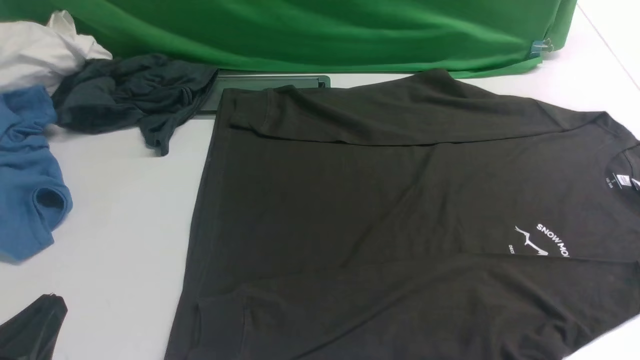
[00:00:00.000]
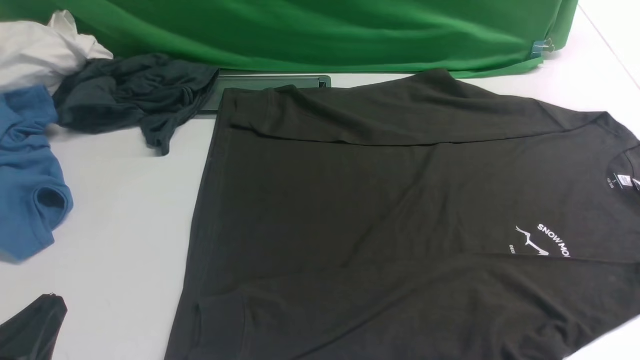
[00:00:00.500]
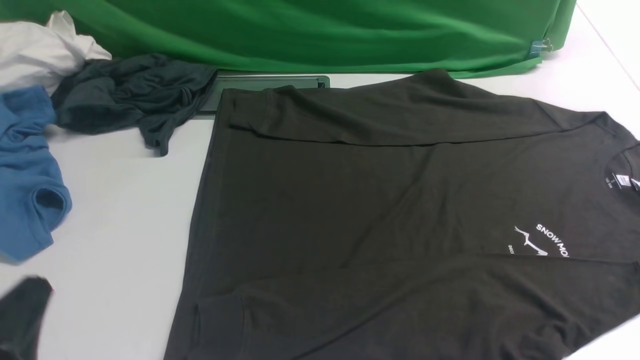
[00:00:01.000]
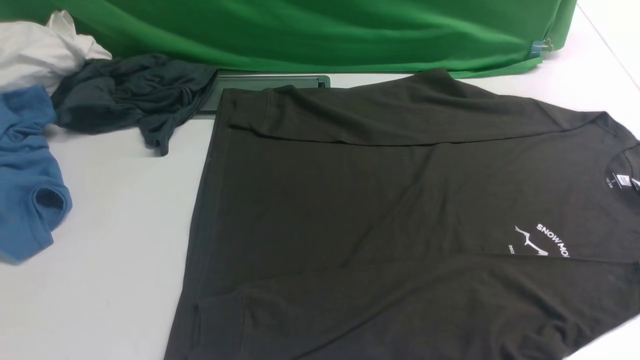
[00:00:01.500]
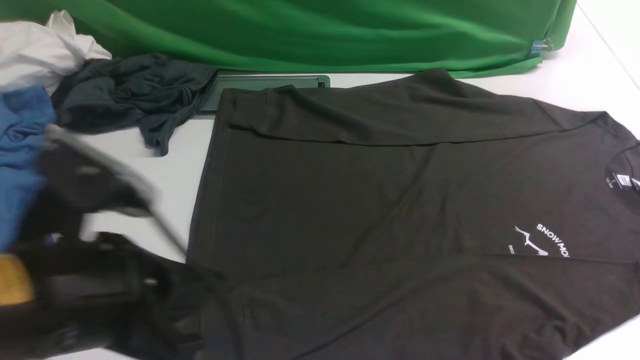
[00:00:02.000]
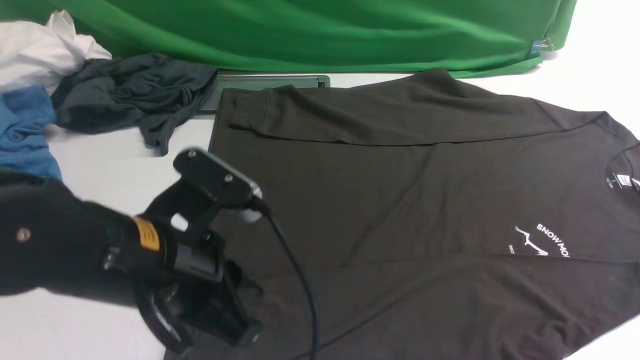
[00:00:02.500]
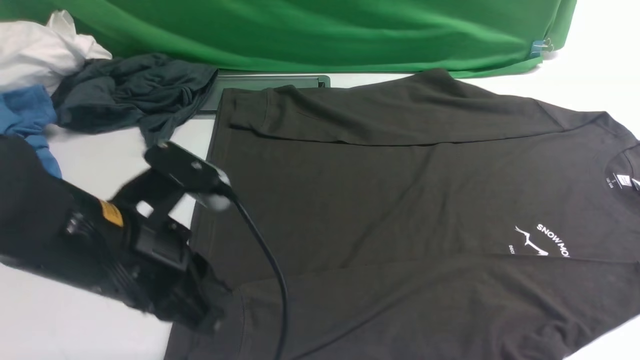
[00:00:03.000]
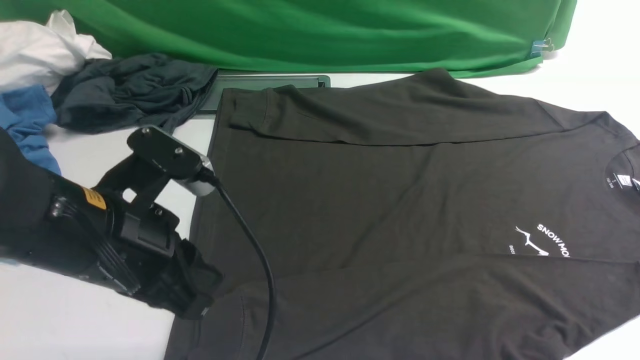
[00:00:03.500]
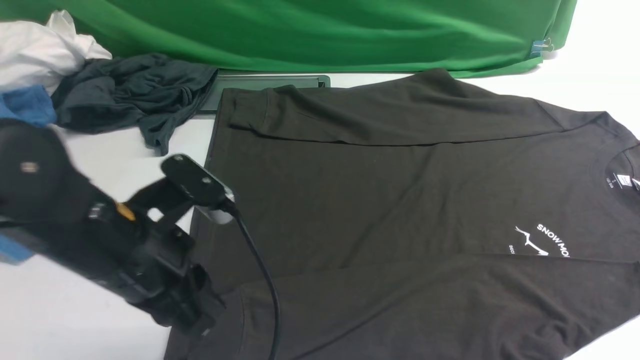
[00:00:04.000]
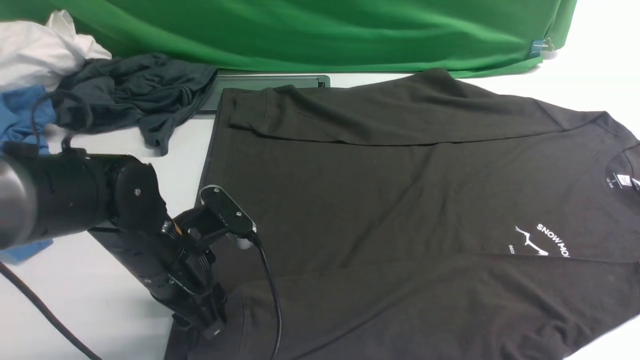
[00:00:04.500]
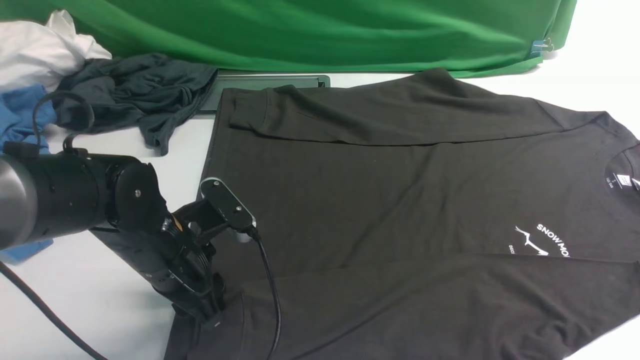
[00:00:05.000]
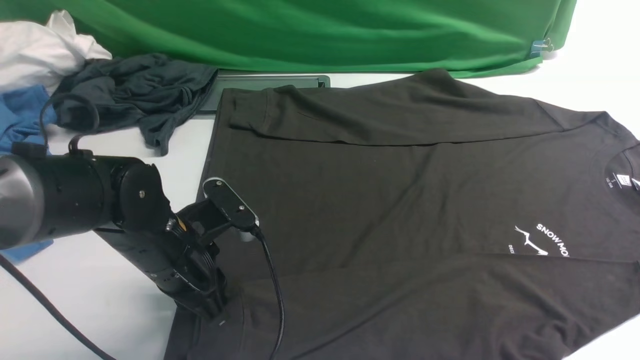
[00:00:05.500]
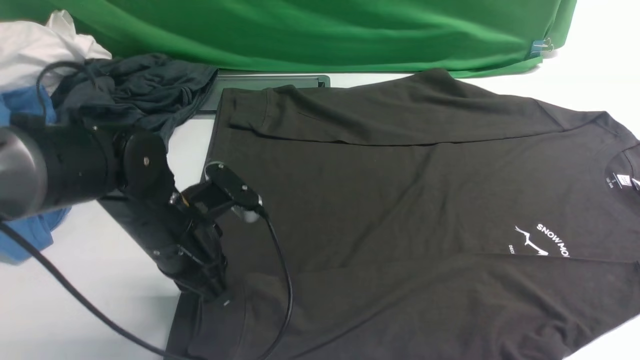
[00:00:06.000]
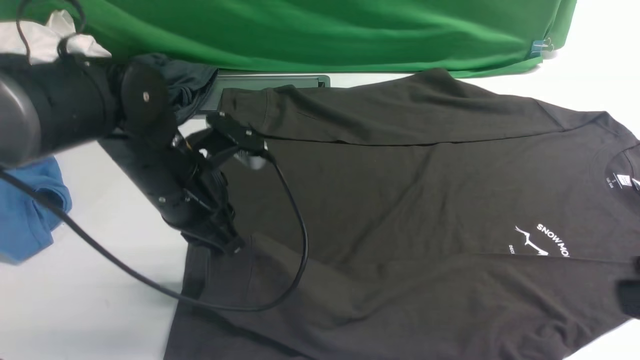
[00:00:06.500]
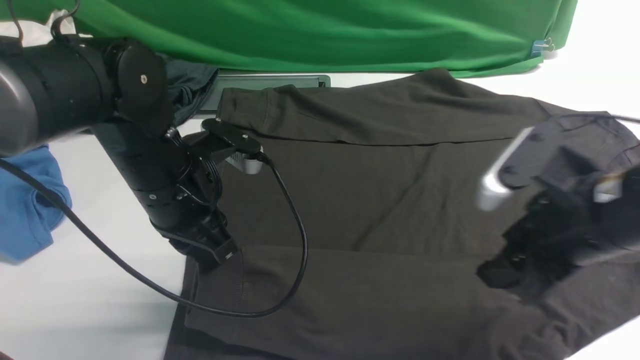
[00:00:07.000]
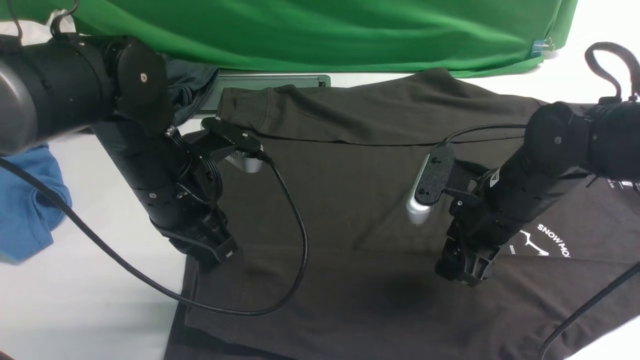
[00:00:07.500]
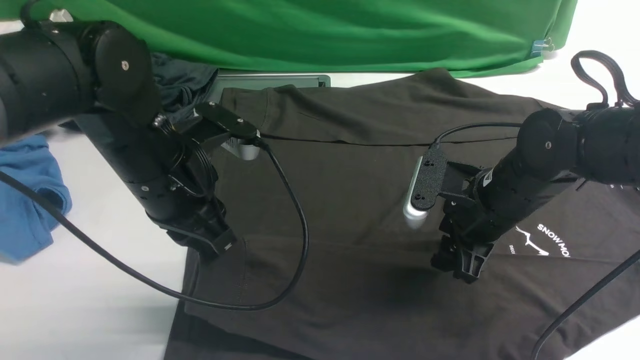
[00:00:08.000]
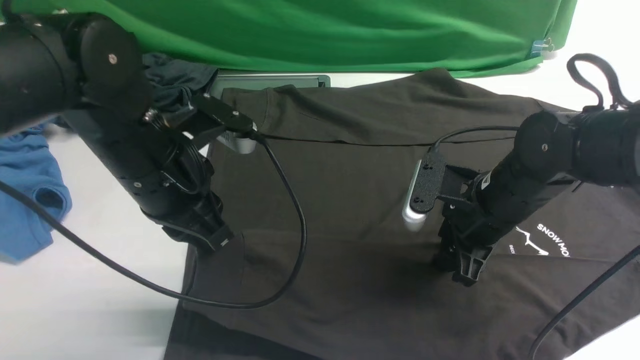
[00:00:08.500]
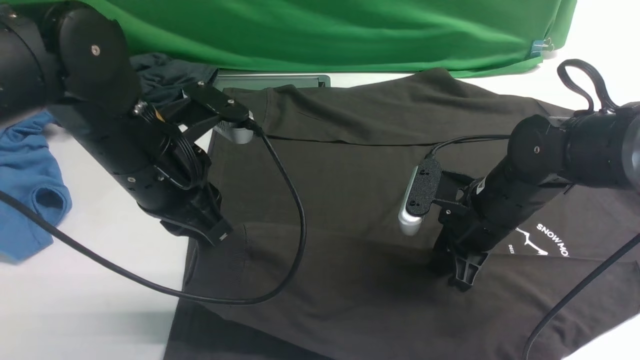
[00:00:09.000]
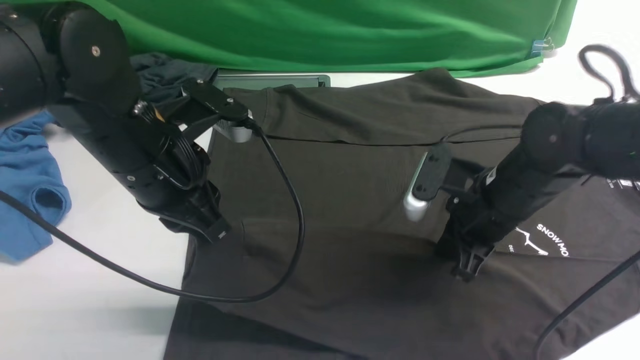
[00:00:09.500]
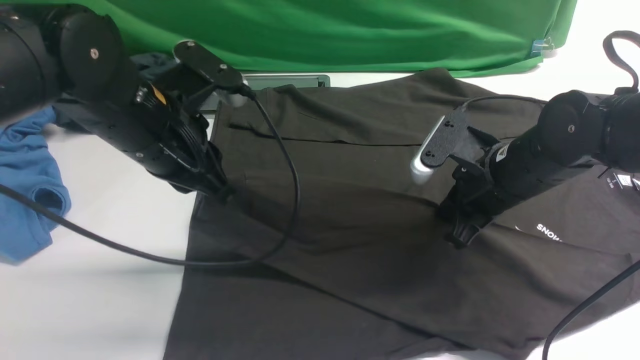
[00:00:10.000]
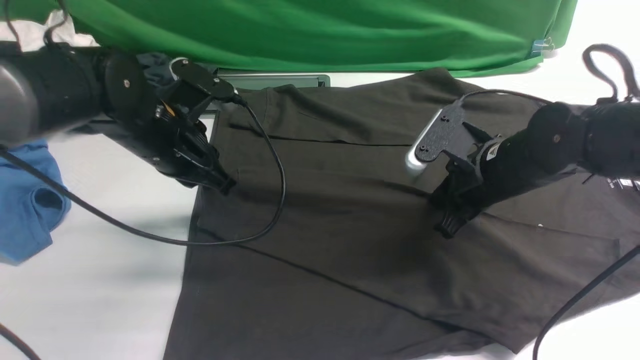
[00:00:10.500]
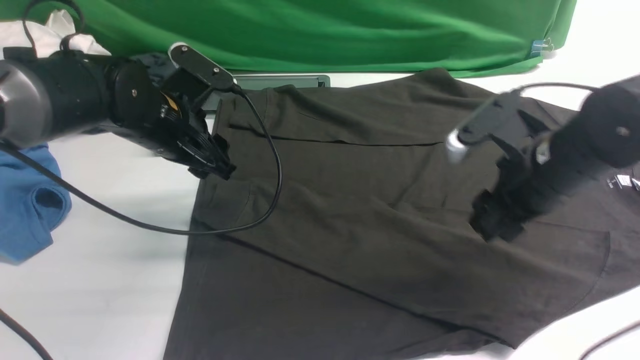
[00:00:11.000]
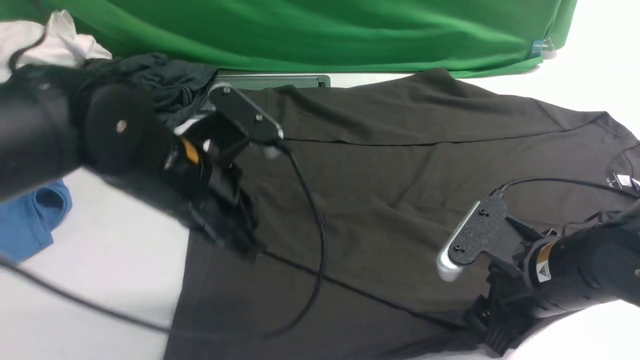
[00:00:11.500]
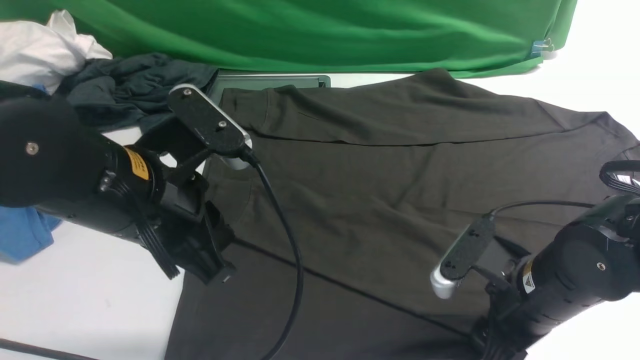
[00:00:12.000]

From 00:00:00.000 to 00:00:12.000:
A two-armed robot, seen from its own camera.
Step, from 00:00:00.000 to 00:00:06.500: use the left arm to clamp the cuff closest to it.
Step, from 00:00:07.000 to 00:00:10.500: use the left arm to drag and place the cuff at the centered position on the left edge of the fabric.
From 00:00:00.000 to 00:00:02.000: The left gripper is displaced upward, to the right and forward by about 15 cm.
From 00:00:02.000 to 00:00:04.000: The right gripper heads upward, covering roughly 15 cm. The left gripper shifts some 10 cm forward and downward, and opens up.
From 00:00:04.000 to 00:00:06.000: The left gripper shifts about 10 cm forward and downward, and closes up.
From 00:00:06.000 to 00:00:08.000: The left gripper shifts some 5 cm upward, while the right gripper goes approximately 30 cm forward and downward, and opens up.
From 00:00:08.000 to 00:00:10.000: The right gripper closes its fingers.
From 00:00:10.000 to 00:00:12.000: Both grippers move backward, roughly 10 cm. The left gripper opens, then closes again. Meanwhile the right gripper opens.

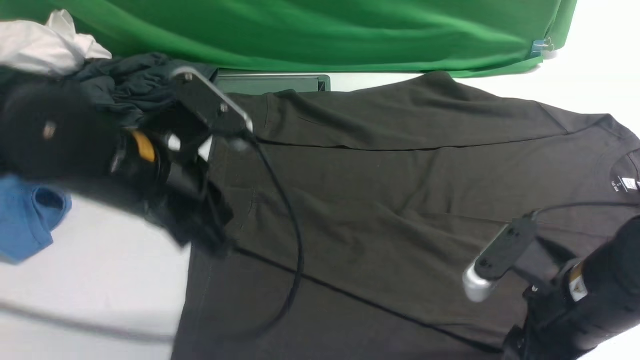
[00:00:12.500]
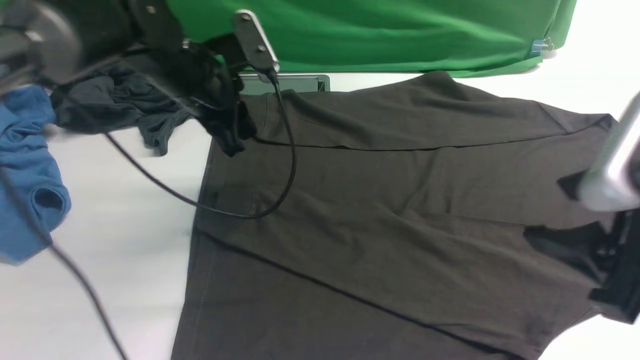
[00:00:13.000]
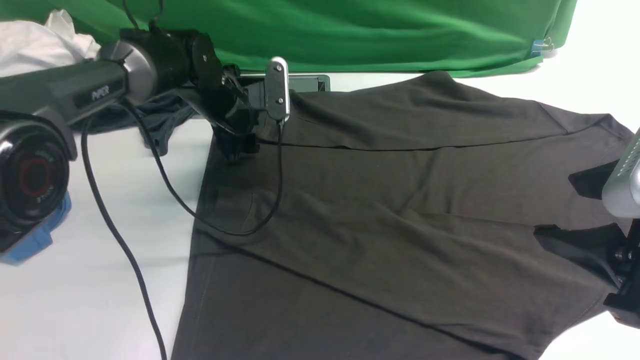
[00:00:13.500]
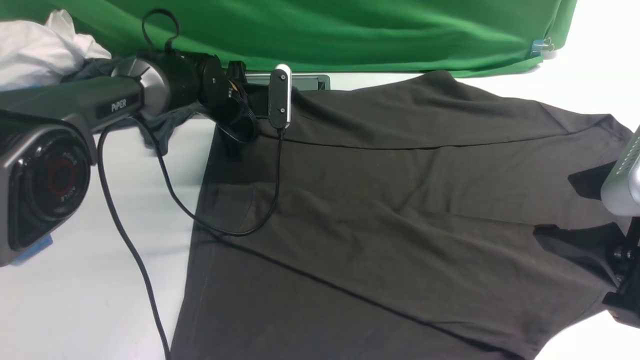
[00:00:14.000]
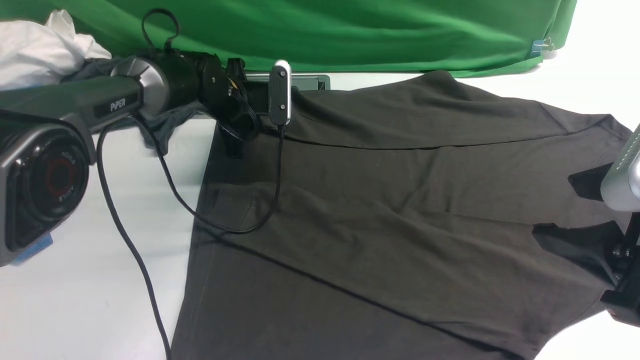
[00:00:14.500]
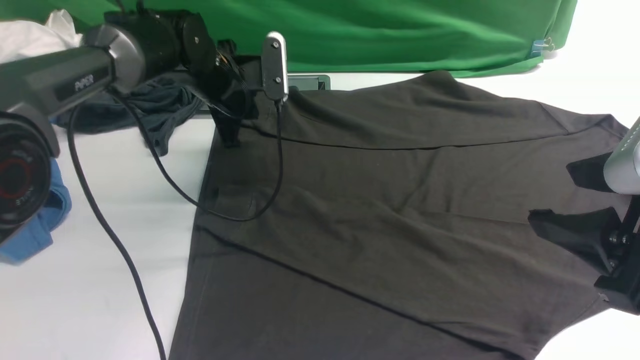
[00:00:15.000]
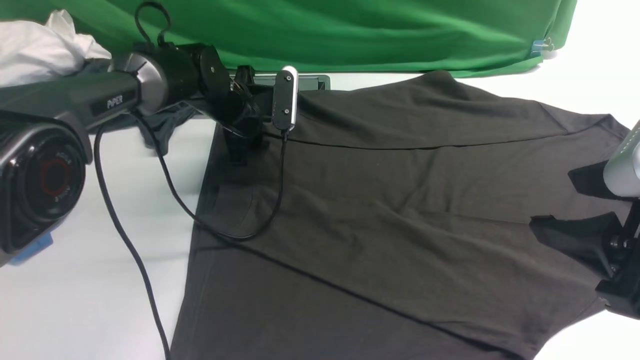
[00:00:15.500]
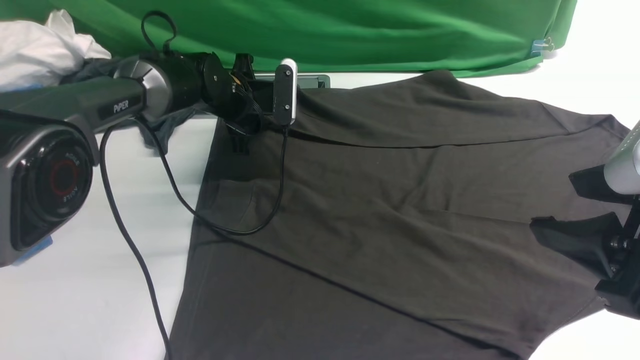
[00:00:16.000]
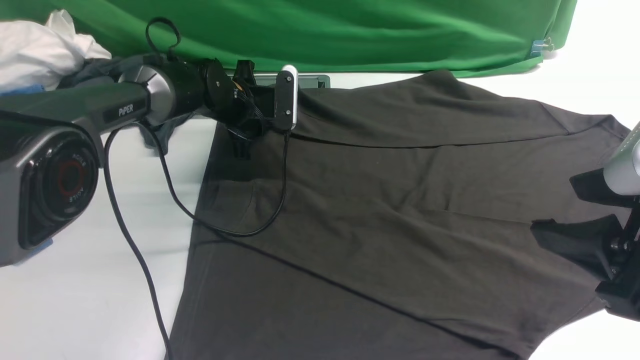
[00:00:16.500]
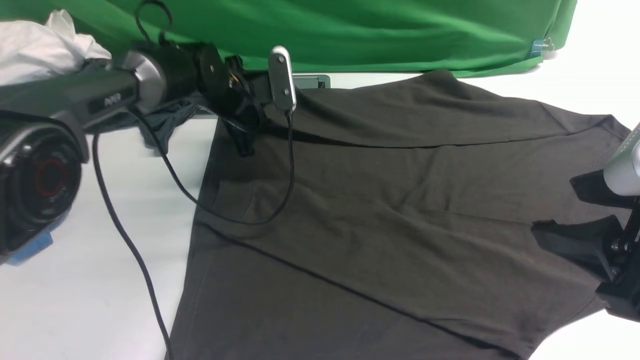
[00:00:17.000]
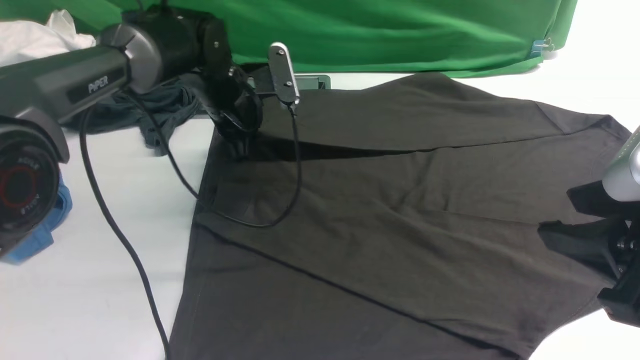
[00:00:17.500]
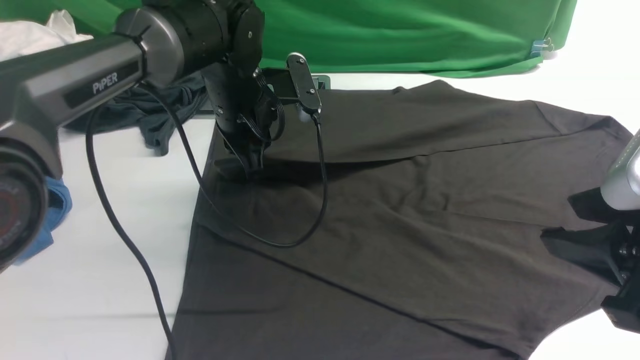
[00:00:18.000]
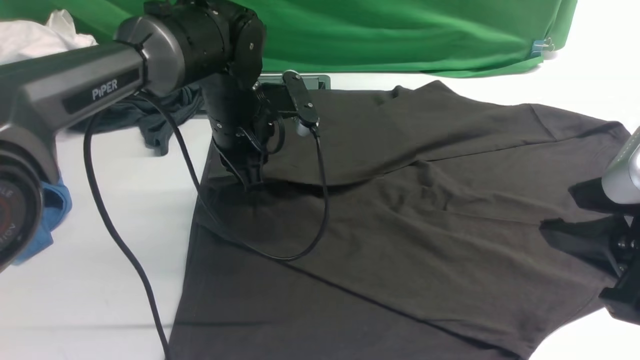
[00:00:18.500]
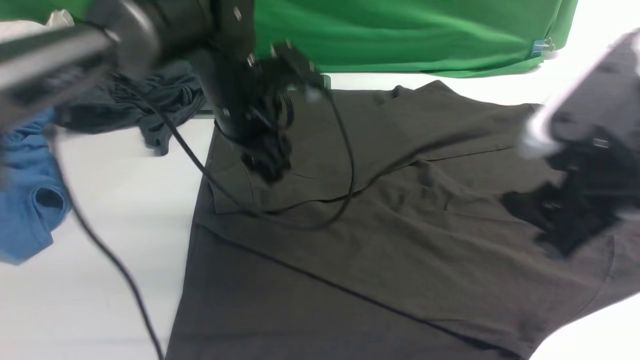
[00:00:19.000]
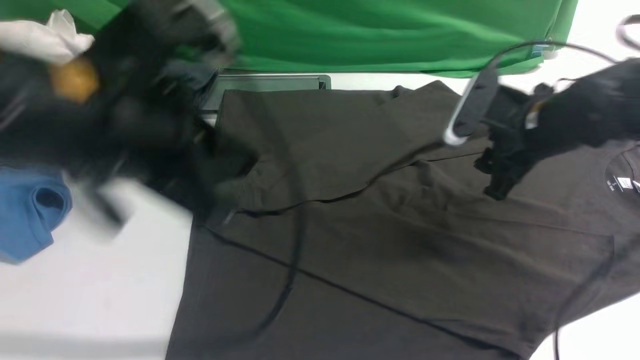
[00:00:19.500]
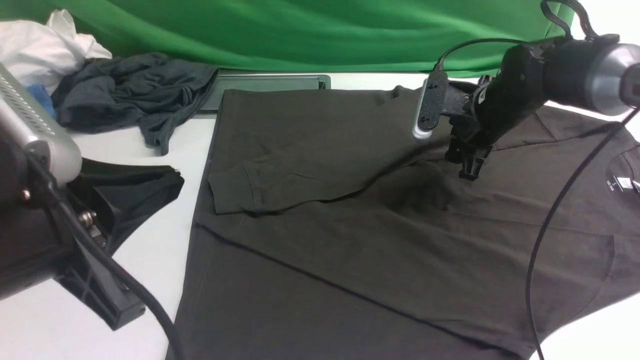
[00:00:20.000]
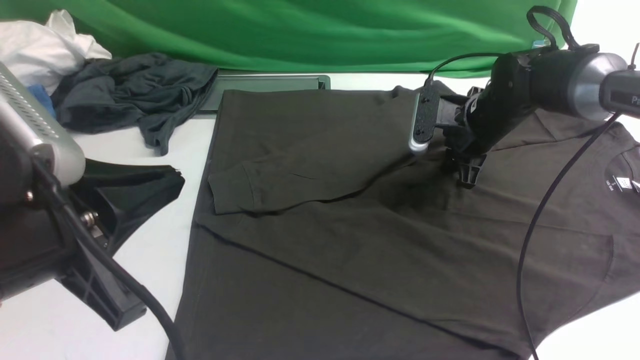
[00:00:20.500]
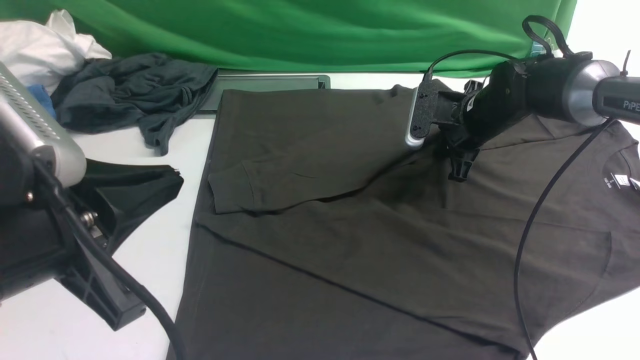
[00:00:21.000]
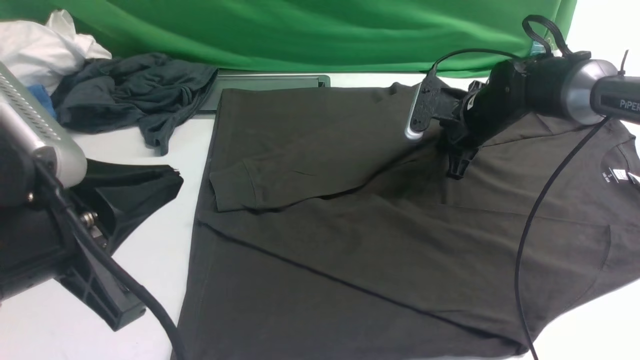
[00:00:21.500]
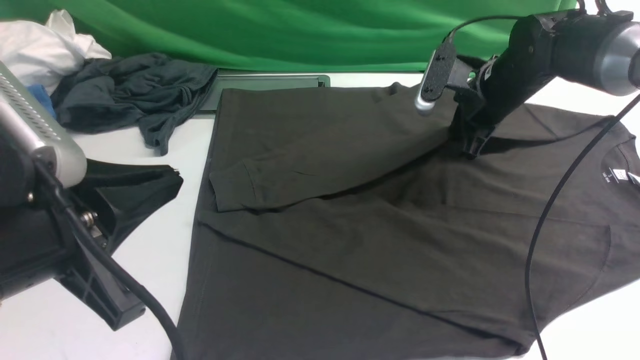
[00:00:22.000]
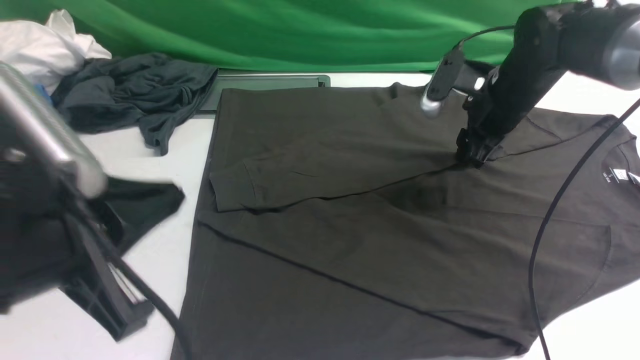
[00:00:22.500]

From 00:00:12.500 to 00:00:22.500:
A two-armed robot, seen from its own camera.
Step, from 00:00:12.500 to 00:00:17.000: use the left arm to clamp the cuff farthest from it.
Step, from 00:00:17.500 to 00:00:18.500: use the left arm to drag and drop the cuff onto the cuff closest to the left arm.
From 00:00:12.500 to 00:00:14.500: The right gripper travels upward by about 10 cm. Meanwhile the left gripper moves forward and downward, some 25 cm, and opens, then closes again.
From 00:00:14.500 to 00:00:16.500: The left gripper opens, then closes again.
From 00:00:16.500 to 00:00:18.500: The left gripper is displaced backward and upward by some 15 cm.
From 00:00:18.500 to 00:00:20.500: The right gripper goes approximately 35 cm forward and downward. The left gripper heads backward and upward, covering roughly 30 cm, and opens, then closes again.
From 00:00:20.500 to 00:00:22.500: The right gripper is displaced upward by about 10 cm, and closes, then opens again.
